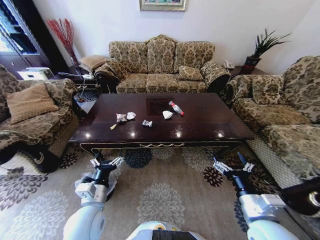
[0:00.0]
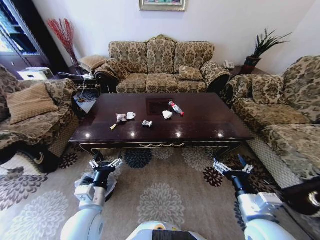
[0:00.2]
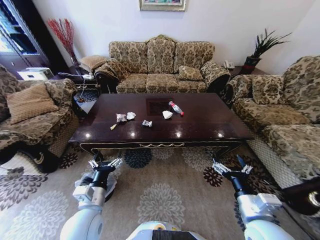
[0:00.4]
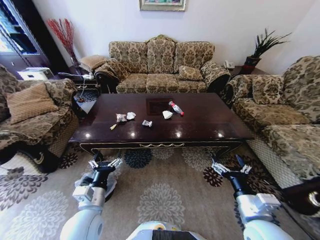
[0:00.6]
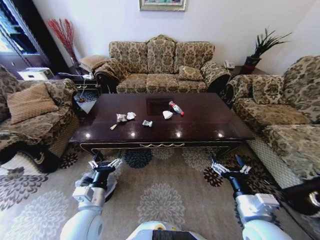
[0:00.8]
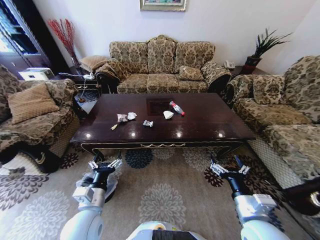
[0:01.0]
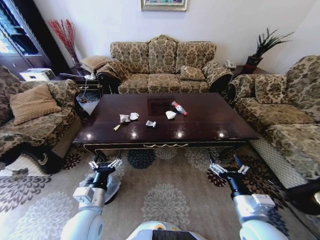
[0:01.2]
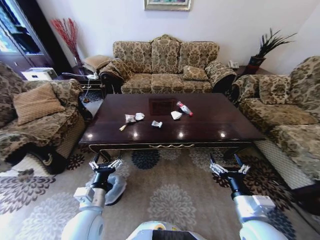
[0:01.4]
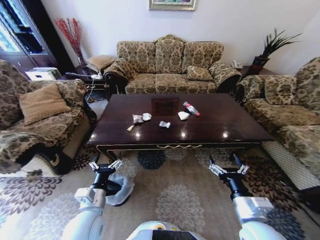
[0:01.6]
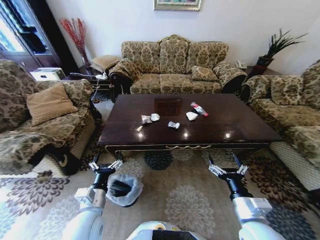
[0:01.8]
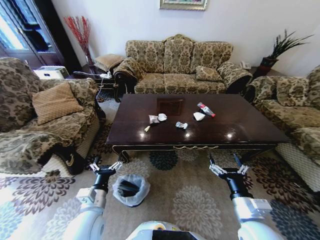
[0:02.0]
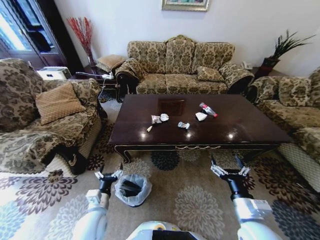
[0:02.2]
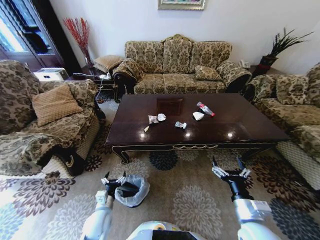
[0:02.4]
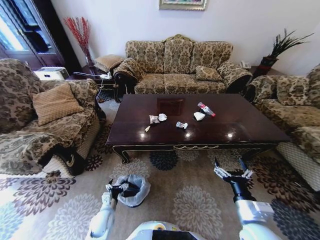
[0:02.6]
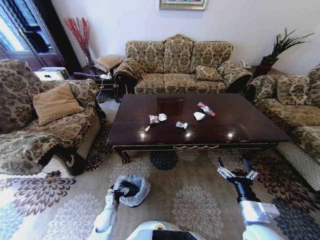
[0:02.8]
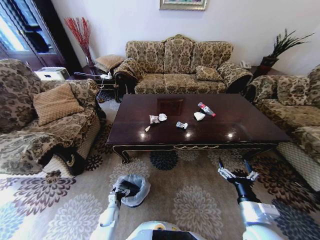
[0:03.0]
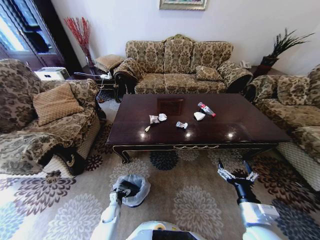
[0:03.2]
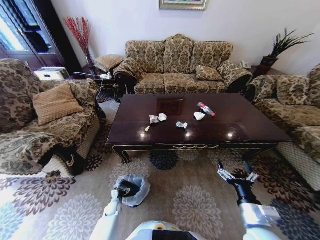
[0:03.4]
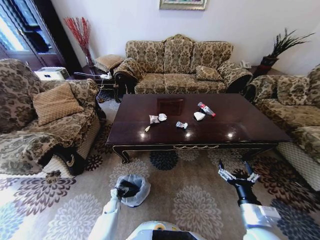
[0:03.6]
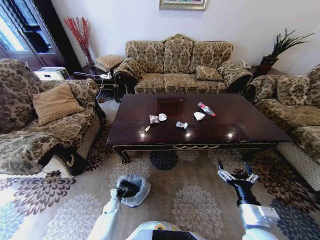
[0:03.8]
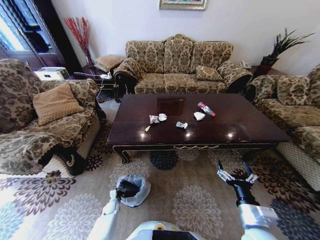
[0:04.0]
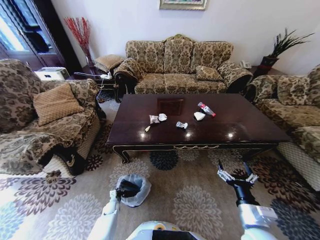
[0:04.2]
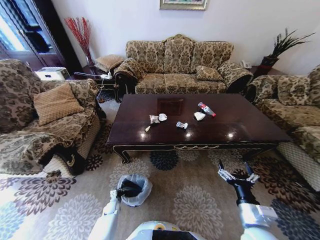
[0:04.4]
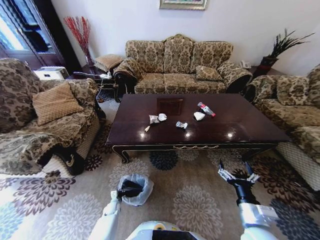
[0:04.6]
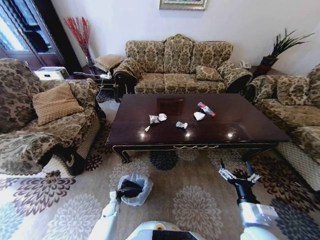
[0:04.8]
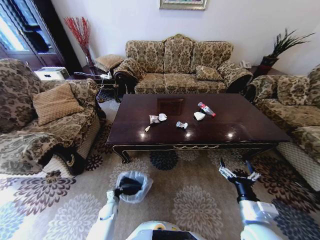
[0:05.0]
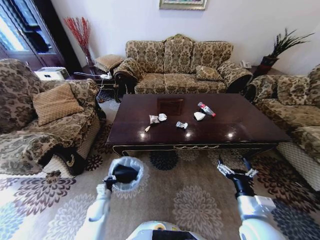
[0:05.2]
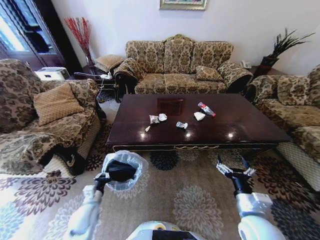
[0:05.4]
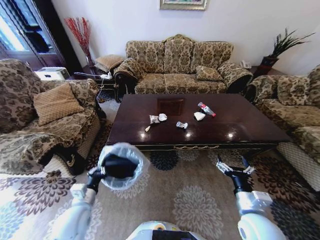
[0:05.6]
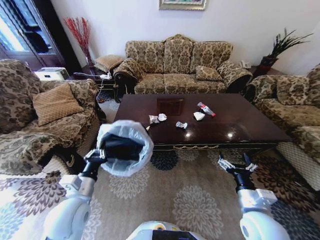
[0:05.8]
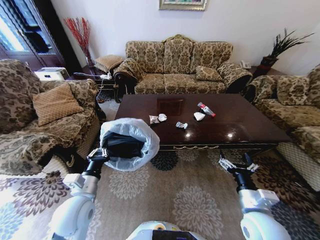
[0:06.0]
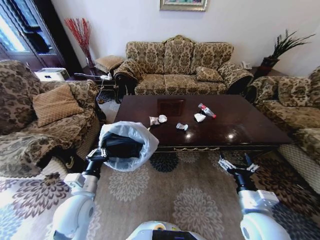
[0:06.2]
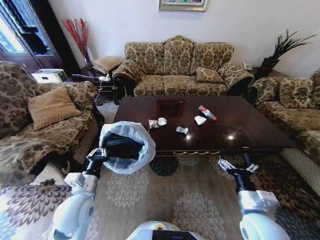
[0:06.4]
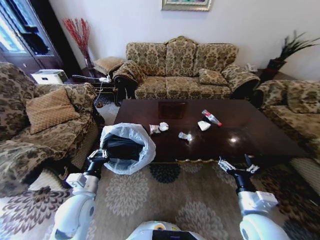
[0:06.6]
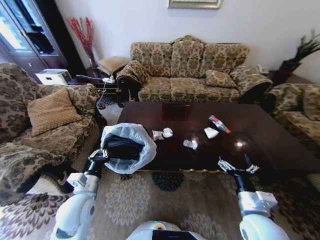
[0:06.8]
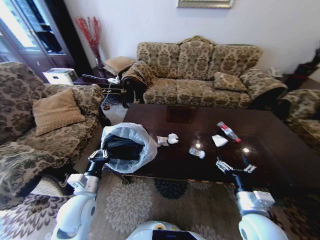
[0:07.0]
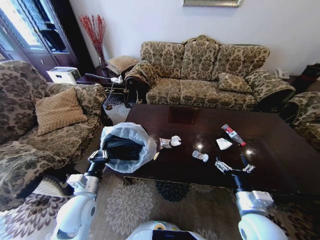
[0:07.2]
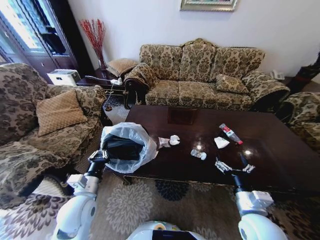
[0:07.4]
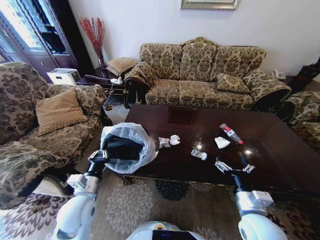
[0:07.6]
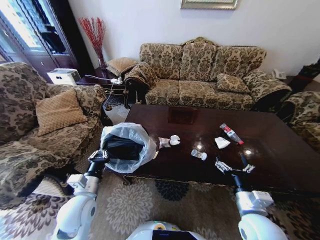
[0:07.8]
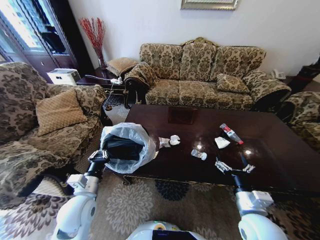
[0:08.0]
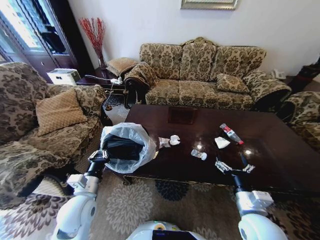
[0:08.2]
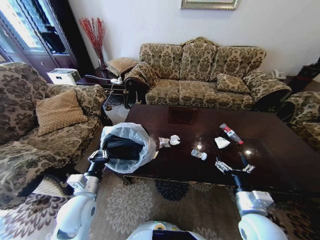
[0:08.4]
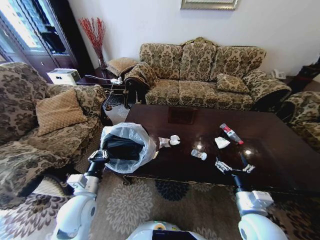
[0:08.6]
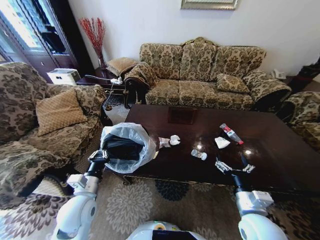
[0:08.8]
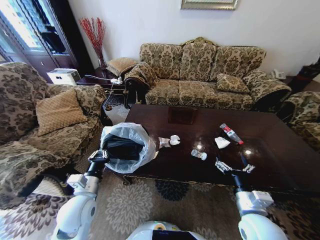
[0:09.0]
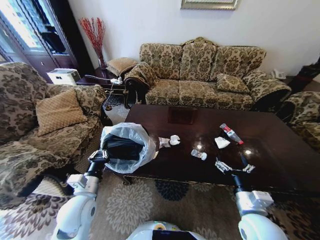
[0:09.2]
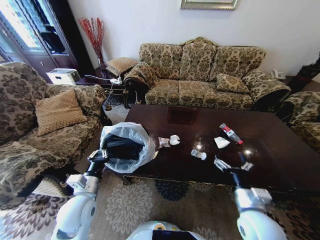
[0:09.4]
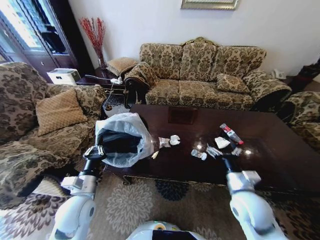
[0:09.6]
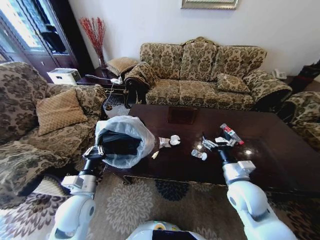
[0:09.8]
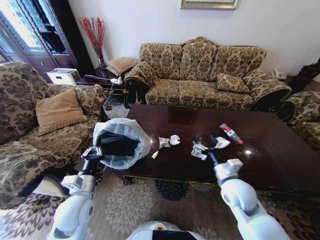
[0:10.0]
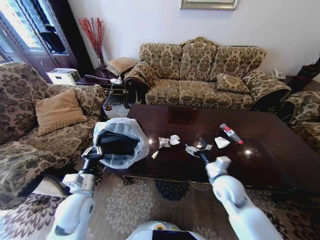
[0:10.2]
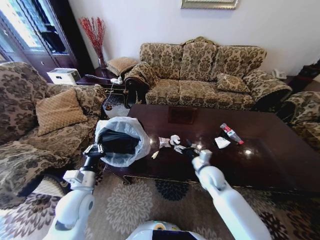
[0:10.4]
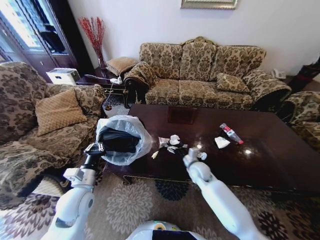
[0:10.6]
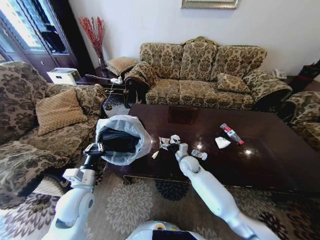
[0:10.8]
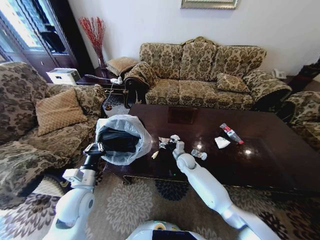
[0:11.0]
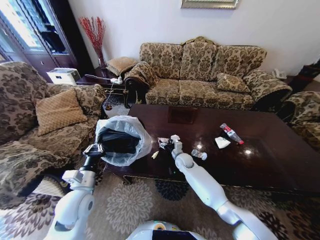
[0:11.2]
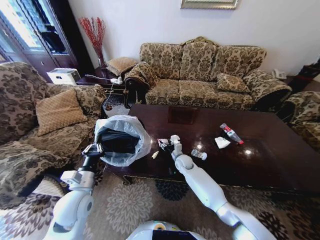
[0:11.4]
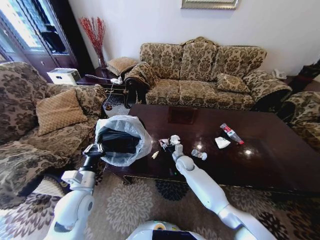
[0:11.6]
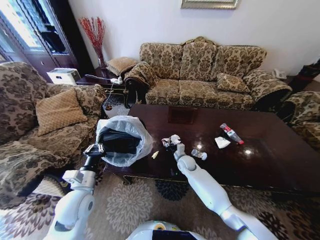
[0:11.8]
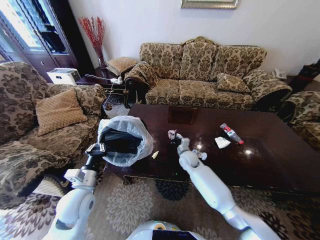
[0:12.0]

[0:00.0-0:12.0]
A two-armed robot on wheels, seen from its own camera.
Task of the whole recording: Move to the front of the table and place the trash on the table into the trash bin.
0:01.6 to 0:03.0: The left gripper moves downward, some 30 cm.
0:03.0 to 0:04.4: The left gripper moves downward, approximately 5 cm, and closes.
0:04.4 to 0:06.0: The left gripper moves upward, some 40 cm.
0:07.6 to 0:09.0: Both grippers stay put.
0:09.0 to 0:10.4: The right gripper travels forward by some 20 cm.
0:10.4 to 0:12.0: The right gripper goes some 15 cm forward and to the left, and closes up.

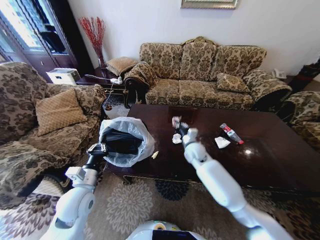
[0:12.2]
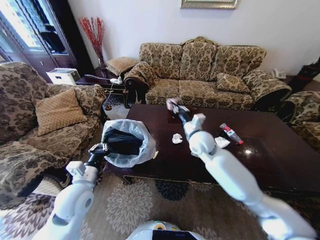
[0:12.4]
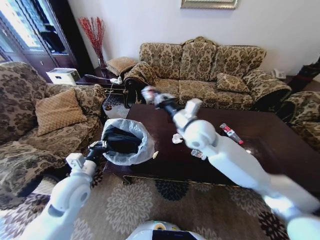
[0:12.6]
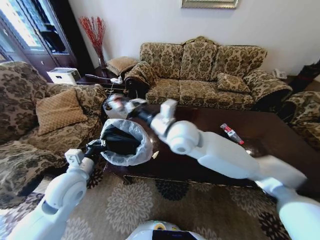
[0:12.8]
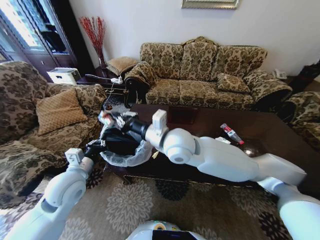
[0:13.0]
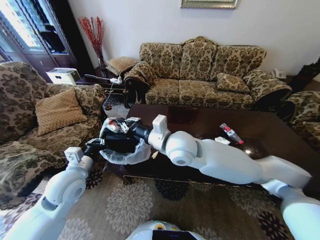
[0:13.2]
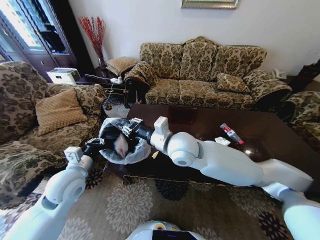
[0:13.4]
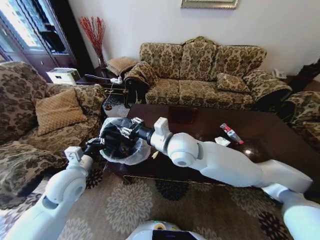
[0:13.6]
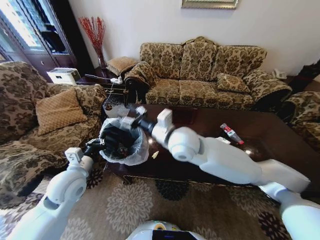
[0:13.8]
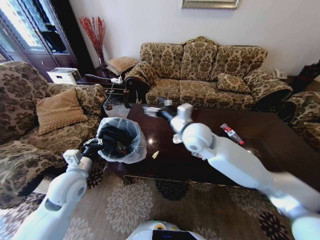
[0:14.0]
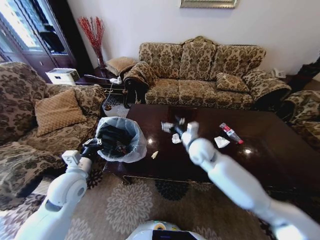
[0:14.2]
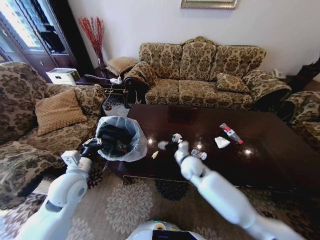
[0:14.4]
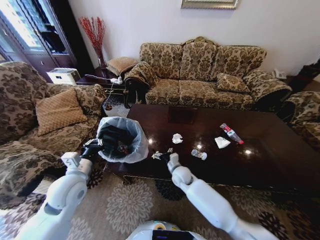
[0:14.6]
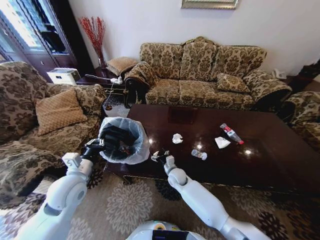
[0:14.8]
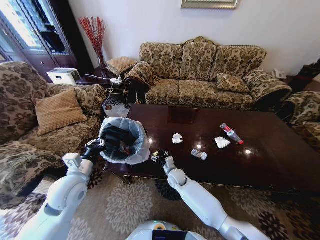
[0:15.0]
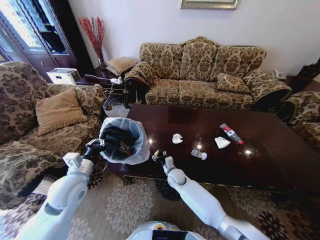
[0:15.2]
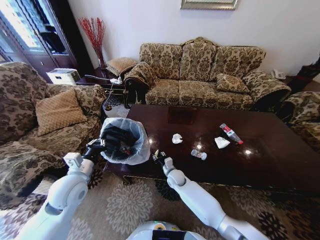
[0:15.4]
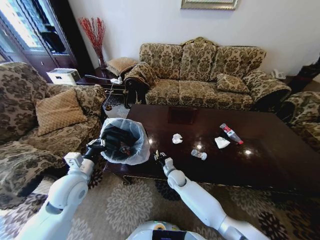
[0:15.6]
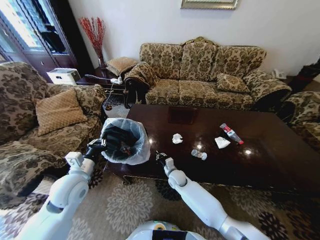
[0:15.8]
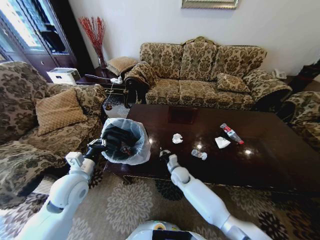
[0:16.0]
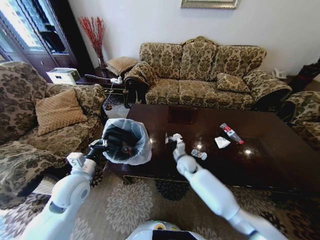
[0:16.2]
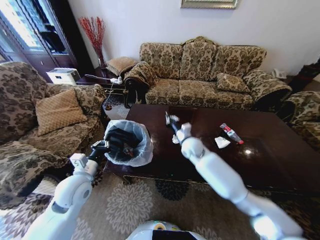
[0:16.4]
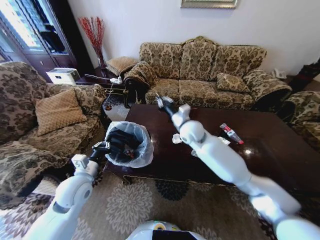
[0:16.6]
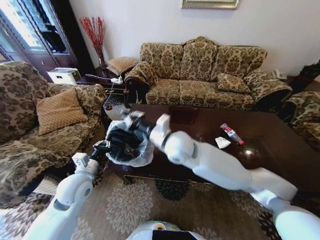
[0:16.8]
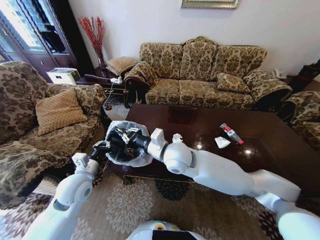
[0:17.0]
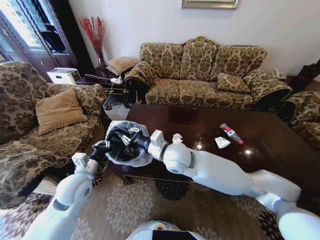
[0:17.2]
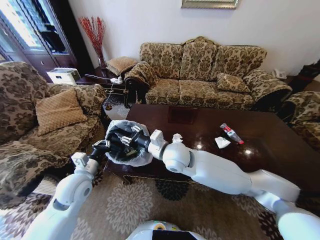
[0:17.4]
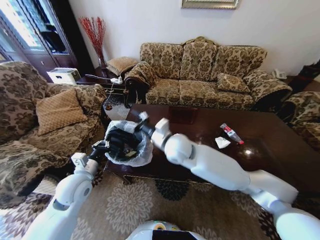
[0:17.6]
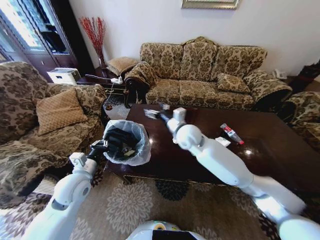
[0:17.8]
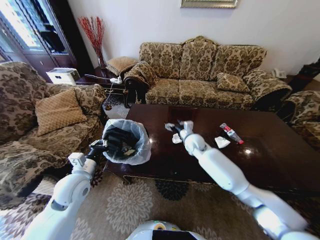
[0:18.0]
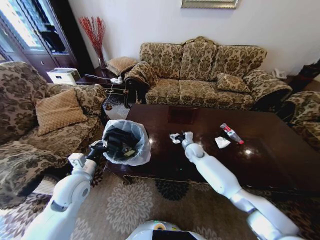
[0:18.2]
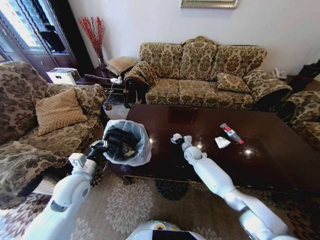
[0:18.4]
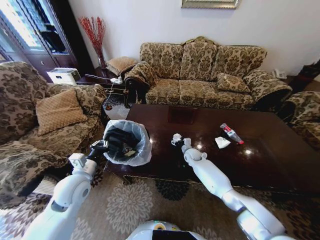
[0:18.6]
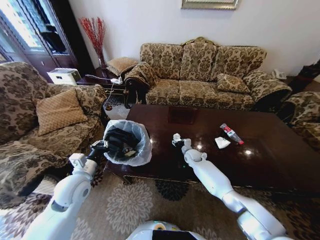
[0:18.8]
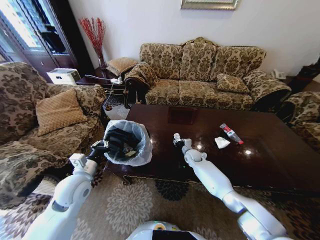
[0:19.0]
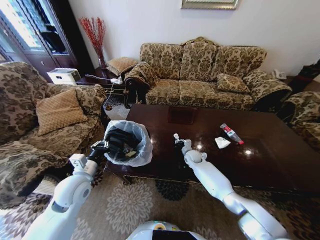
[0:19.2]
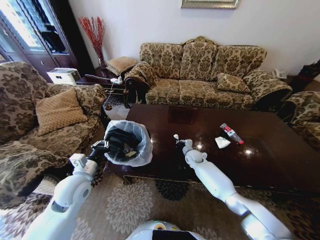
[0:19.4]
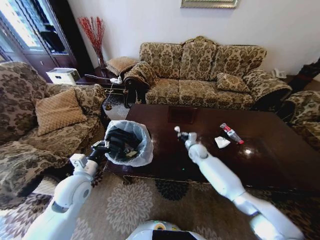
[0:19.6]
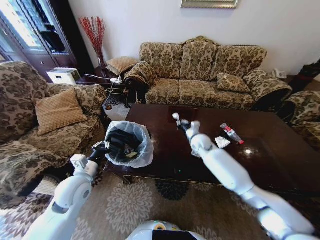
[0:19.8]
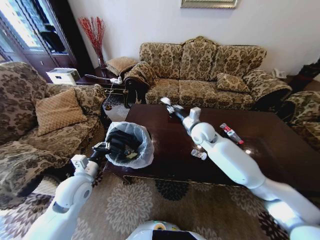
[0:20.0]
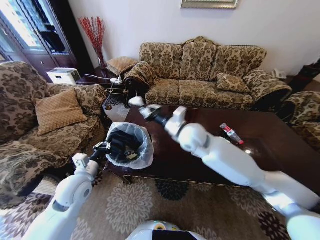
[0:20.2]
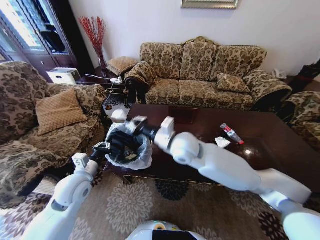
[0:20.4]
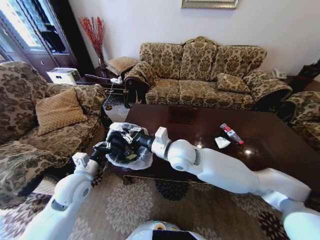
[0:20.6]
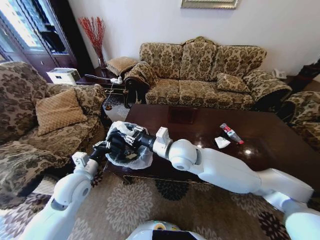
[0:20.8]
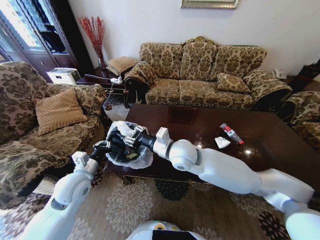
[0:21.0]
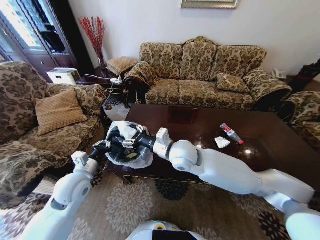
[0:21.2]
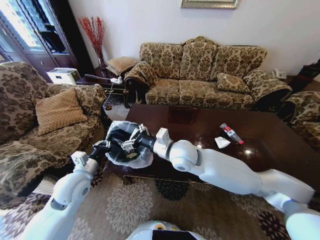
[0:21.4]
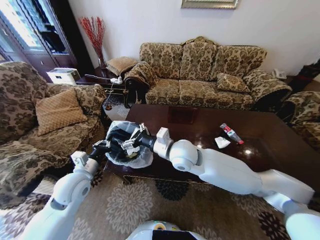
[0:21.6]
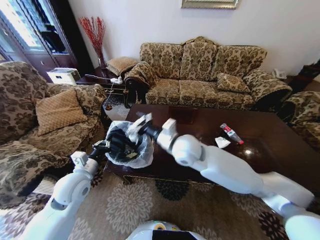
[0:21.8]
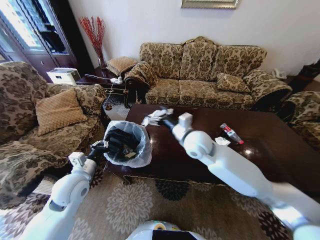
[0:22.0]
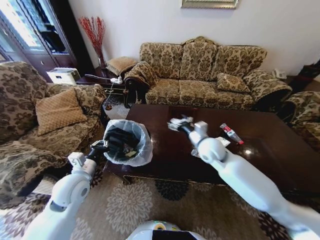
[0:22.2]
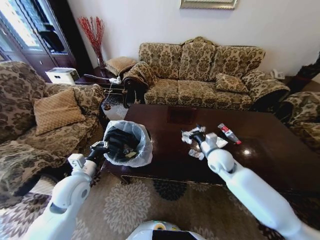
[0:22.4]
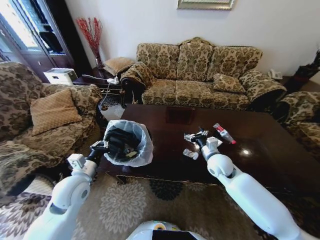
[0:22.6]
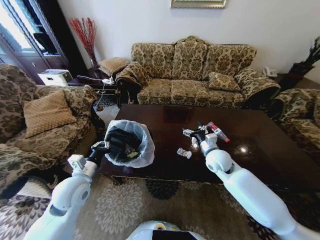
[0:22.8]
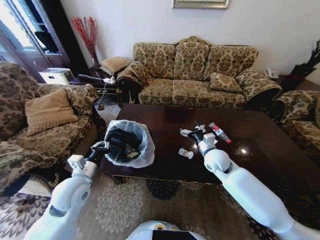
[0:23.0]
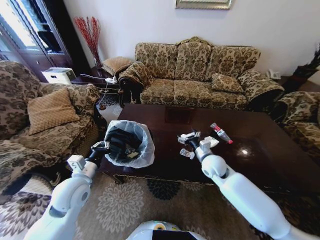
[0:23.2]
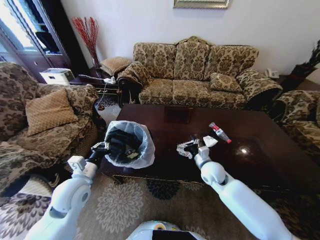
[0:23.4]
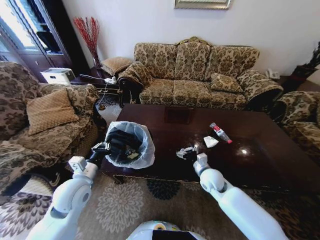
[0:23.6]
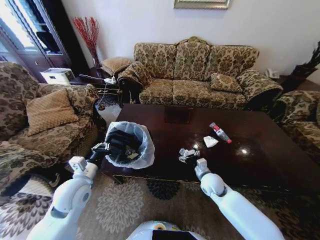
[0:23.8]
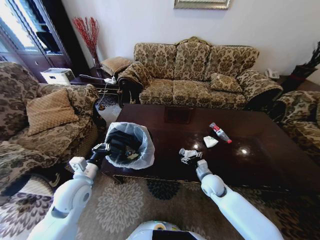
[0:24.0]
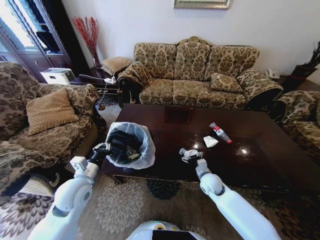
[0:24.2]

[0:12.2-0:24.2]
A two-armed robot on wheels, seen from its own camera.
Task of the whole recording: Move to the front of the table and place the trash on the table into the trash bin.
0:12.2 to 0:13.8: The left gripper travels upward by roughly 5 cm; the right gripper goes roughly 25 cm upward, to the left and backward, and opens up.
0:13.8 to 0:15.2: The right gripper goes about 35 cm downward.
0:15.2 to 0:16.6: The right gripper goes roughly 30 cm upward, and closes its fingers.
0:16.6 to 0:18.2: The right gripper shifts approximately 20 cm downward, and opens its fingers.
0:18.2 to 0:19.8: The right gripper goes some 5 cm upward, and closes up.
0:19.8 to 0:21.2: The right gripper shifts approximately 25 cm backward, to the left and upward, and opens up.
0:21.2 to 0:22.6: The right gripper is displaced to the right and downward by about 20 cm.
0:22.6 to 0:24.2: The right gripper heads downward, covering about 10 cm.
